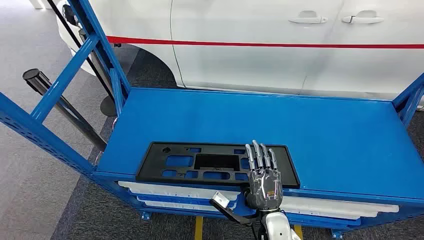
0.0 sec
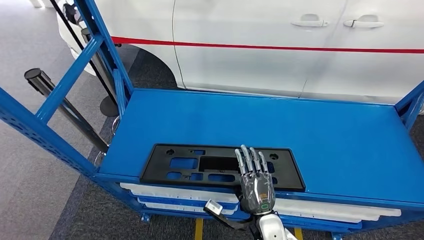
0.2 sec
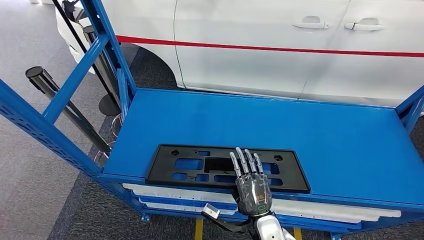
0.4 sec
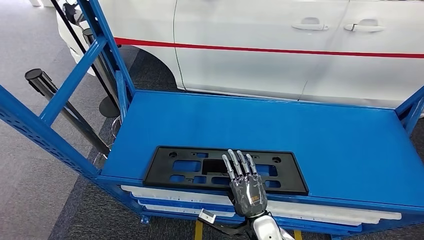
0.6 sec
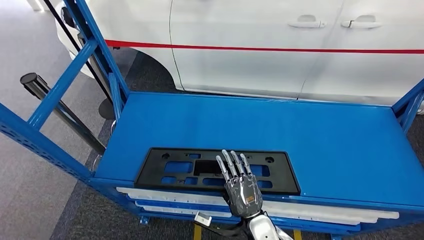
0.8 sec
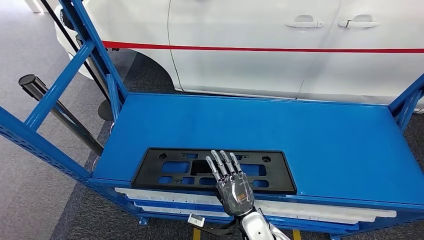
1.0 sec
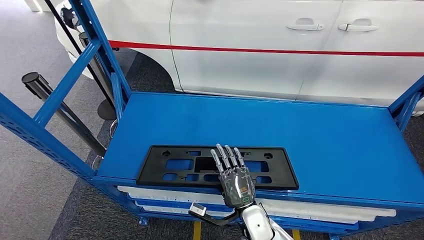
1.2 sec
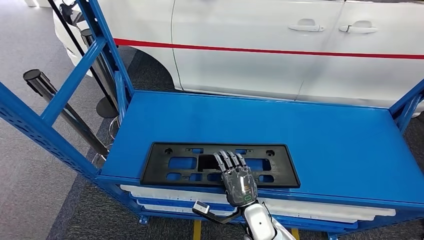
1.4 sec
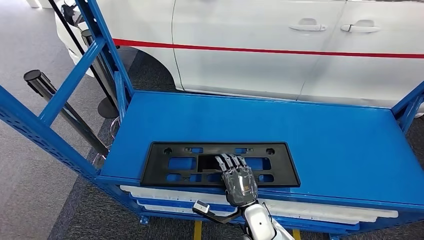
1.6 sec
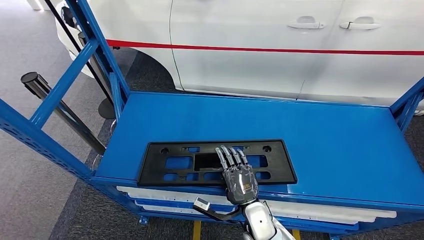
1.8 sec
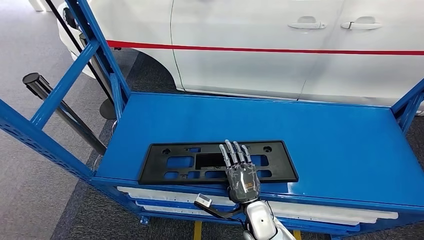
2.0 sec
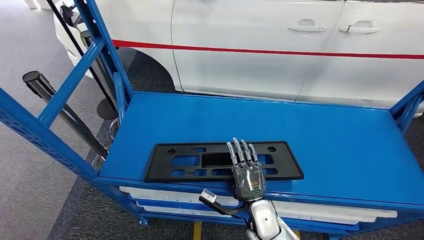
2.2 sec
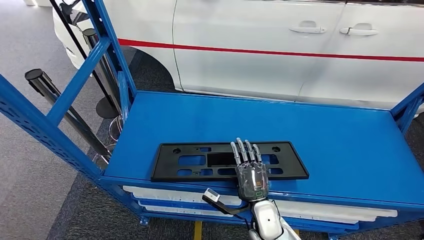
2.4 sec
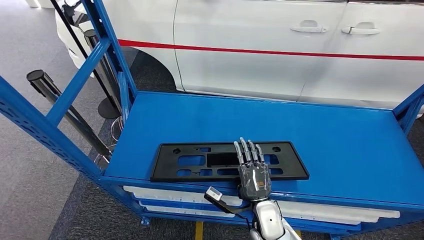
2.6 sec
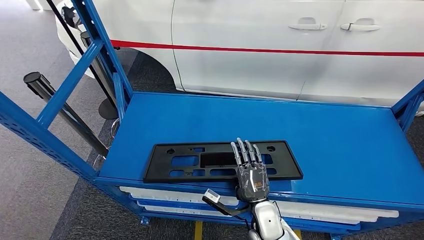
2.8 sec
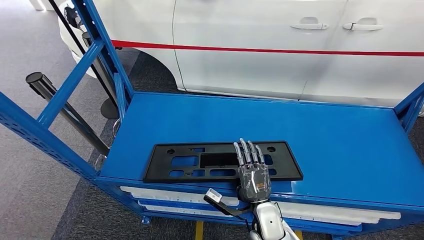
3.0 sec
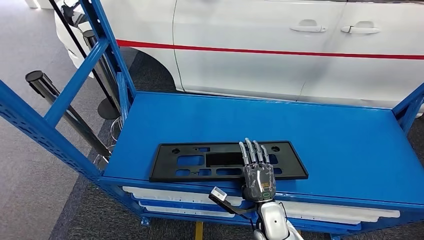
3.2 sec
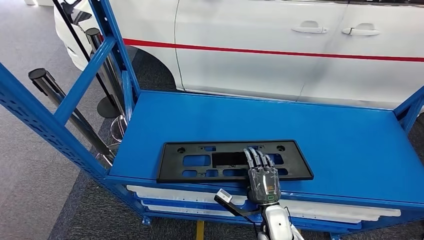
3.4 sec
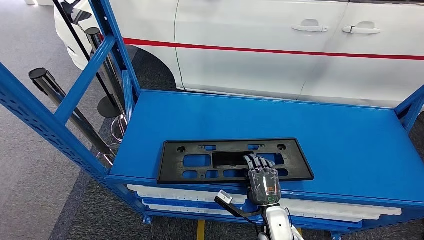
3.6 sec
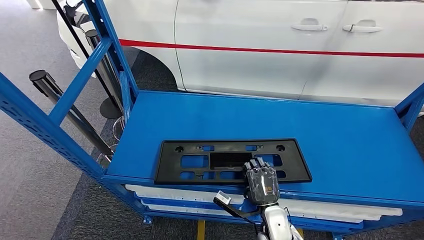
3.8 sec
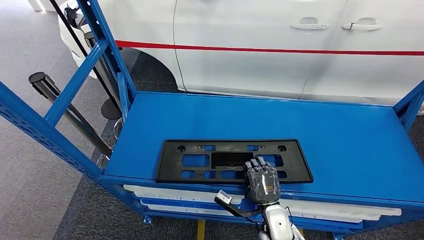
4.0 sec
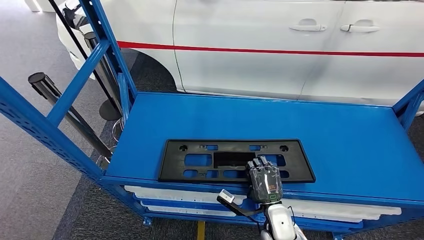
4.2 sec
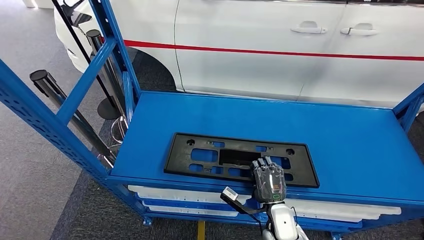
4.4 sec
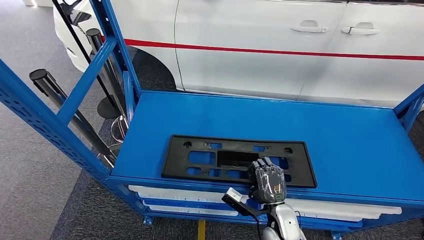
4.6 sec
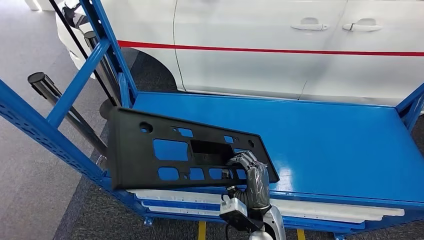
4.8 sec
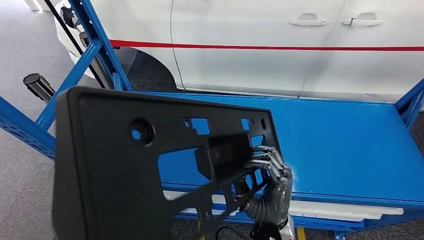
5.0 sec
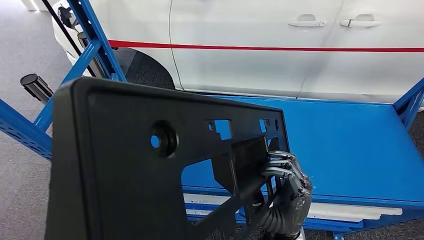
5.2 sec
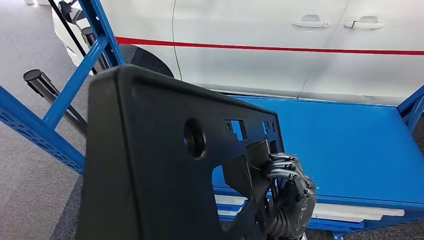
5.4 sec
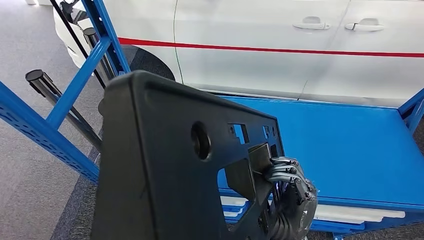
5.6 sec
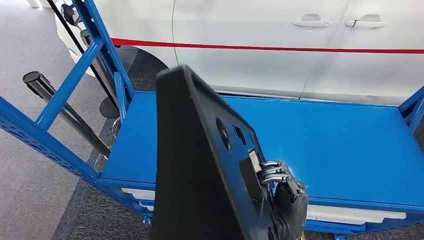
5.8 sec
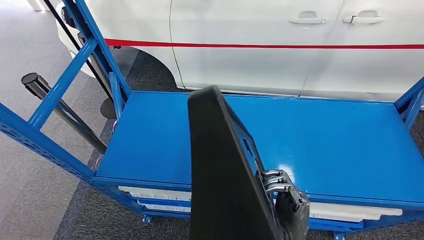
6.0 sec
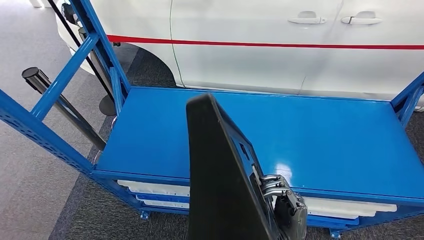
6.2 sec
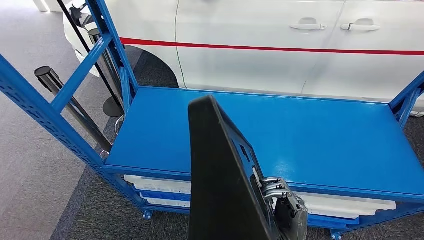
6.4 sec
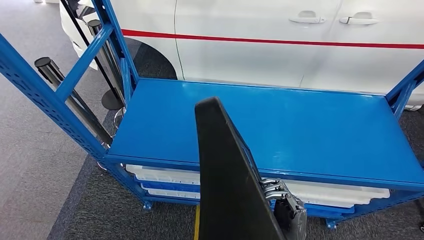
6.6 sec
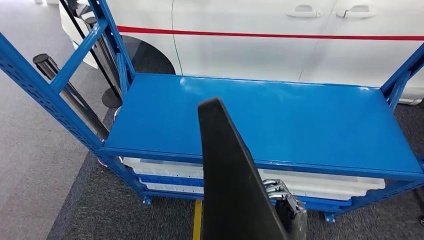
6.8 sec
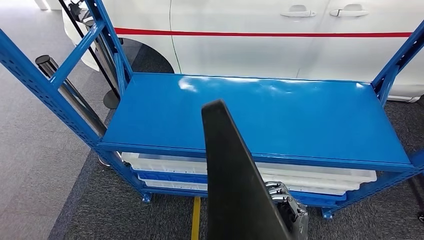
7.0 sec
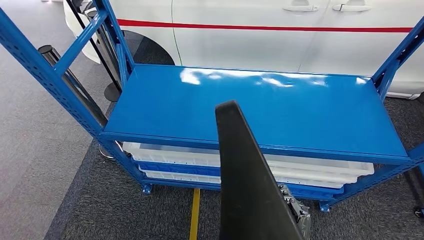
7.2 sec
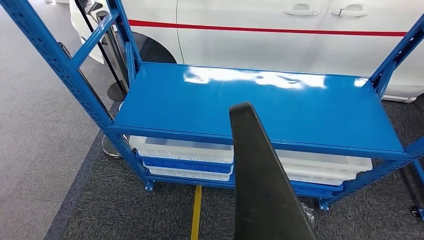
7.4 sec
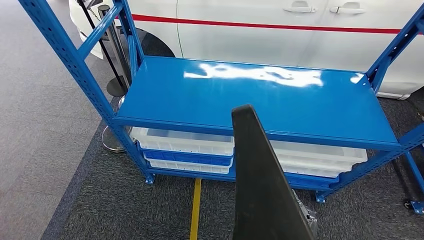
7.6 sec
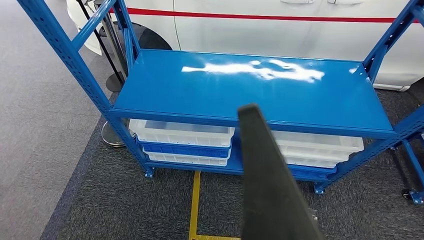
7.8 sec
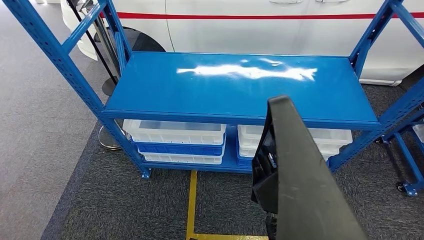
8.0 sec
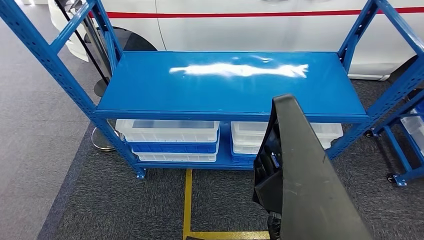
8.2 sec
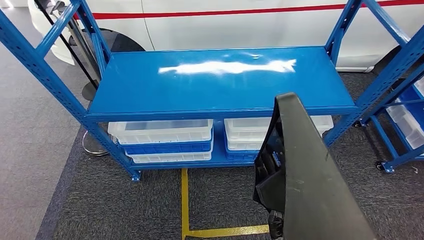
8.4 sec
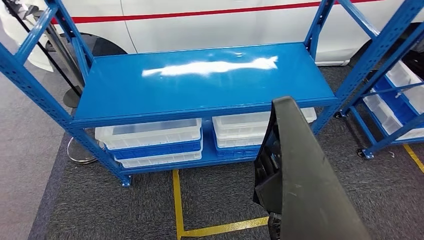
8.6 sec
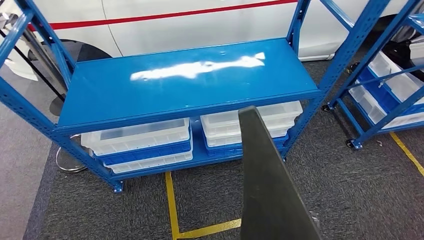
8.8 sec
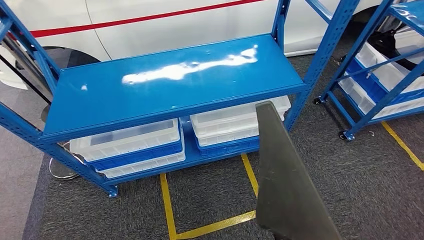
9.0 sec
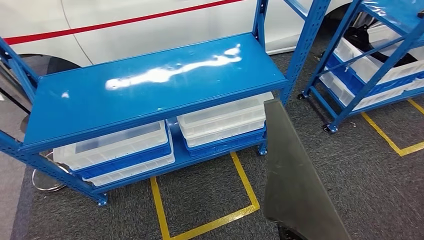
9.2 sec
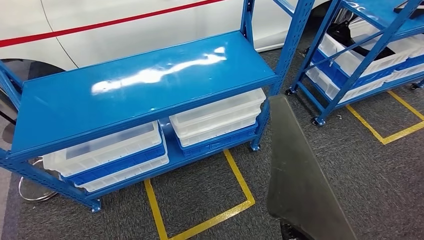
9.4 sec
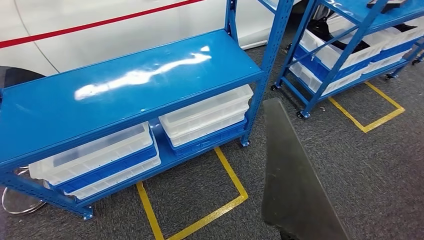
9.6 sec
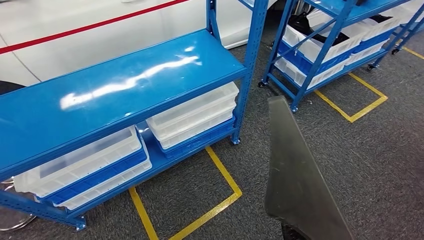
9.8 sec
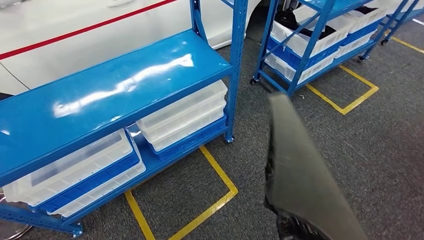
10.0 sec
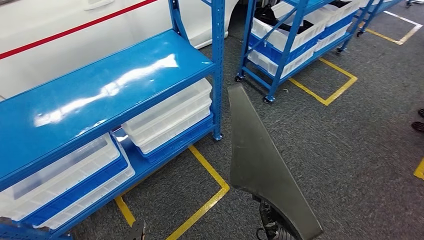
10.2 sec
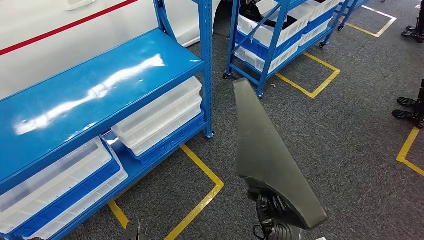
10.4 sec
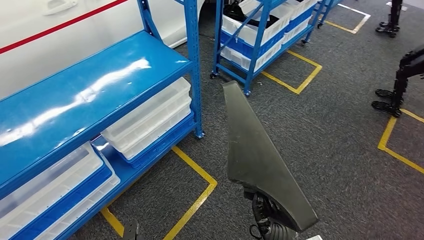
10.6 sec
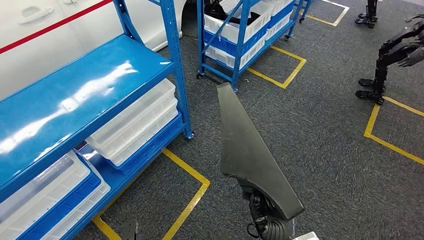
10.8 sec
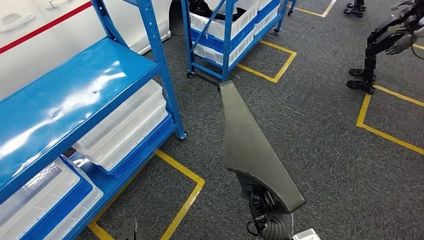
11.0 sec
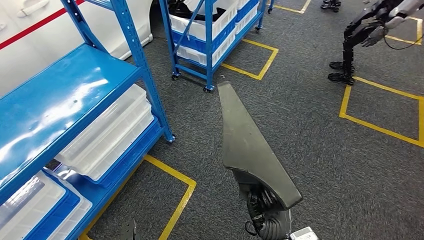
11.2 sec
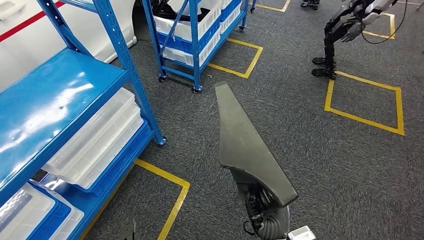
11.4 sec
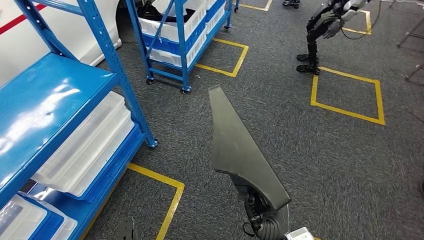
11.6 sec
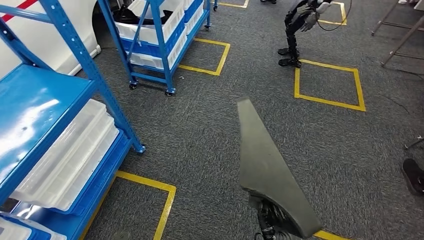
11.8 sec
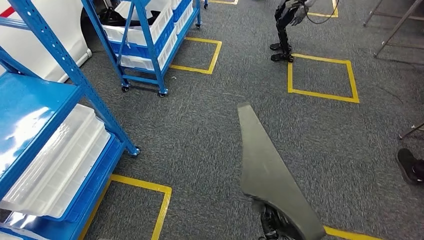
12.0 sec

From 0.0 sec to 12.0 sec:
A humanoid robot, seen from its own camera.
Step, from 0.0 sec to 8.4 sec: Pick up the large material from the shelf.
From 1.6 sec to 3.0 sec: The hands make only small movements.

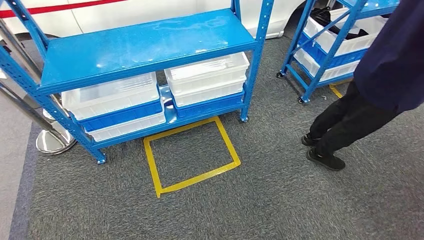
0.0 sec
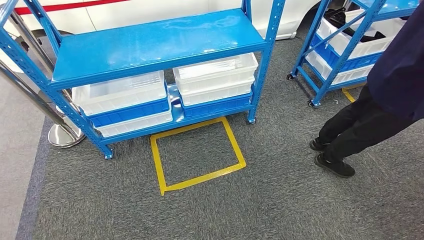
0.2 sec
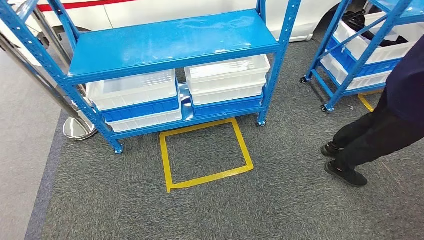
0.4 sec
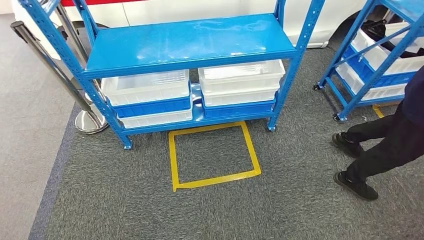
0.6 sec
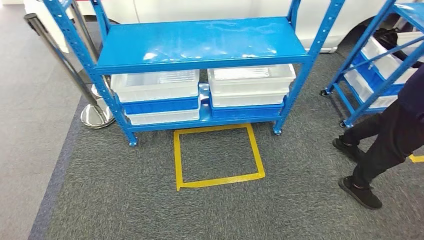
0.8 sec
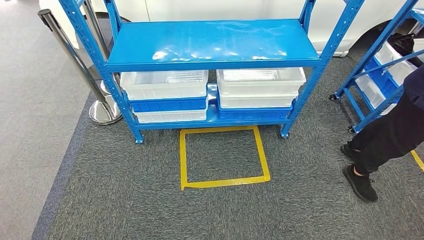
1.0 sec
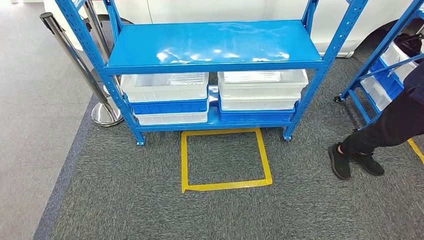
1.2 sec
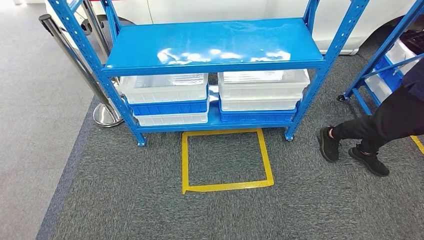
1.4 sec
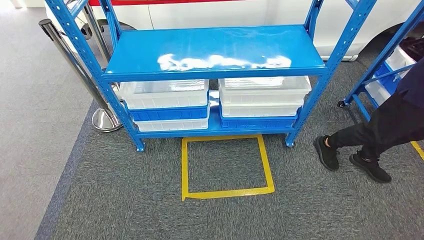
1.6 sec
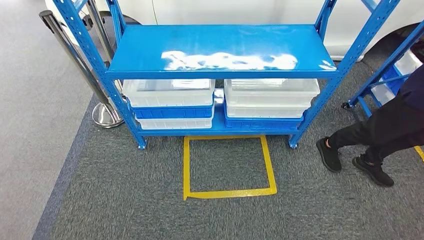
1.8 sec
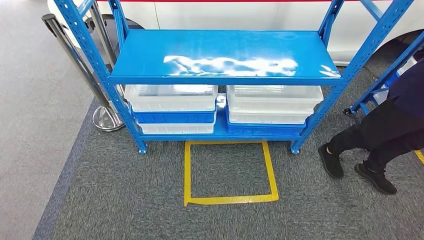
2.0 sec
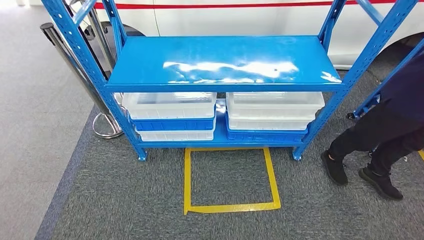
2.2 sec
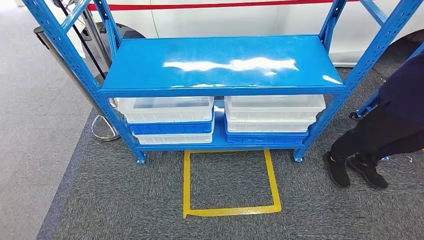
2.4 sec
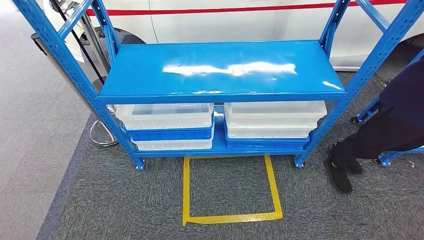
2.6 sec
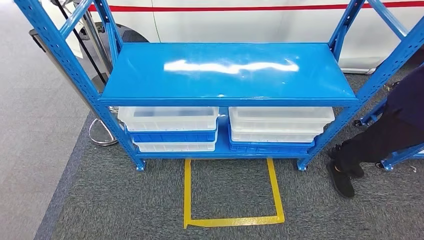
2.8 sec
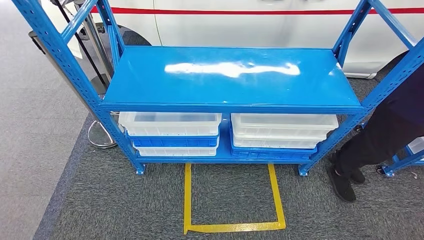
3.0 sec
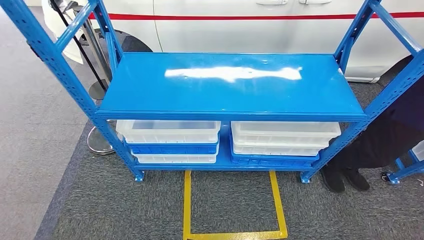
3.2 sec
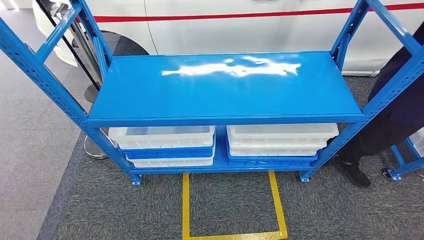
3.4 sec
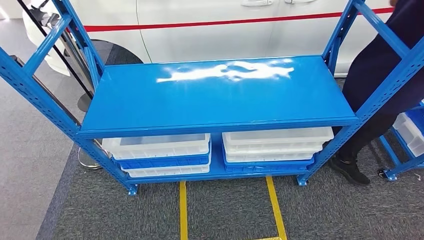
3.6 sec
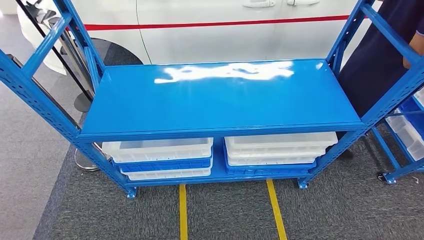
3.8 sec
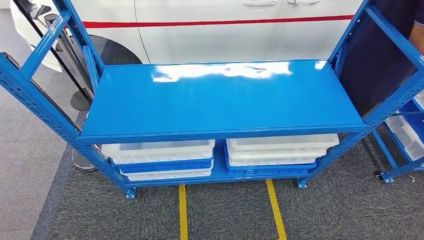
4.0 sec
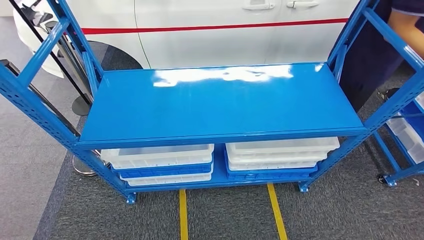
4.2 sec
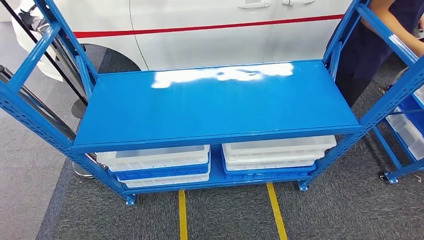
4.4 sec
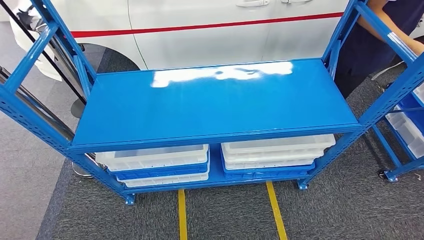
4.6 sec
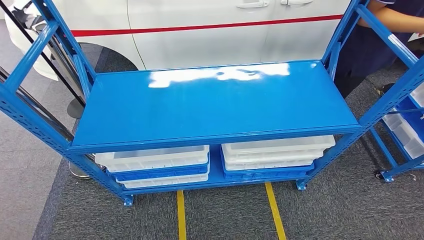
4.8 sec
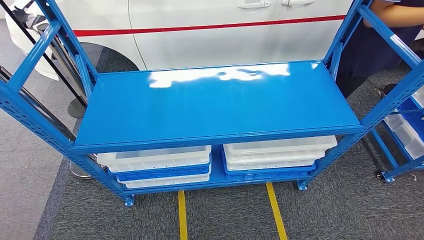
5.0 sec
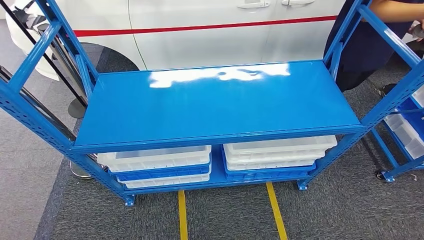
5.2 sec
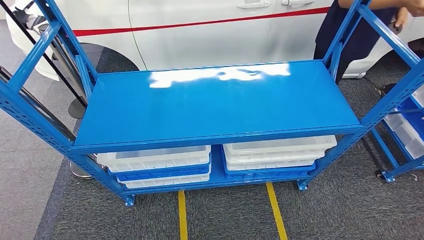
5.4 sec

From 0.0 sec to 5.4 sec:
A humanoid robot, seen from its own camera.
Step, from 0.0 sec to 5.4 sec: Move to the initial position of the shelf.
